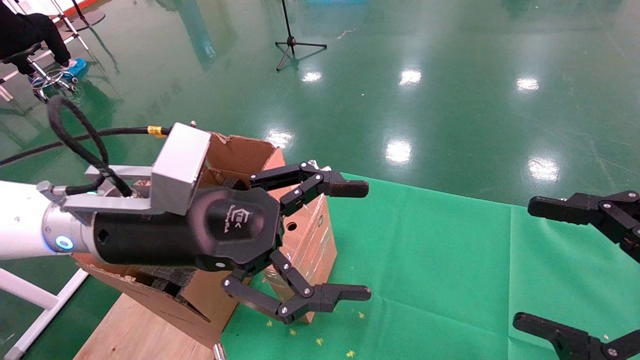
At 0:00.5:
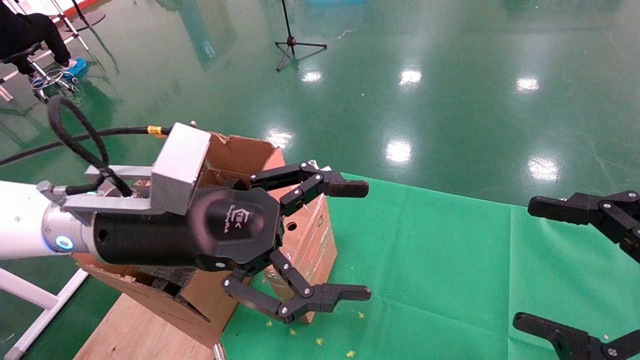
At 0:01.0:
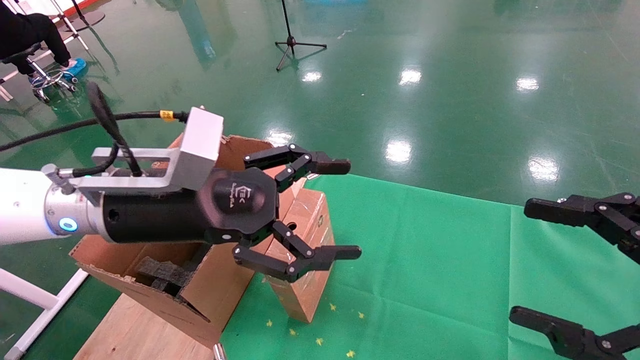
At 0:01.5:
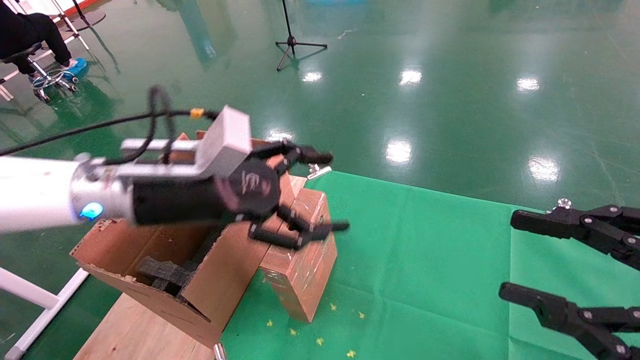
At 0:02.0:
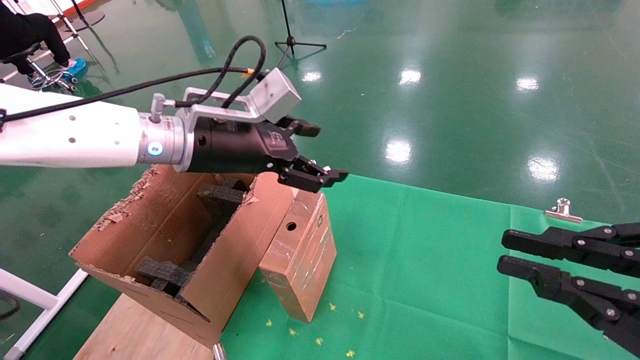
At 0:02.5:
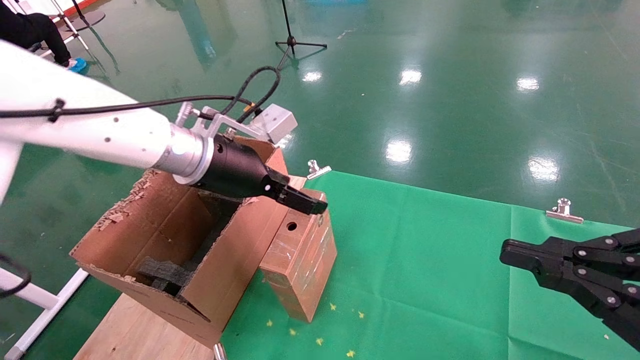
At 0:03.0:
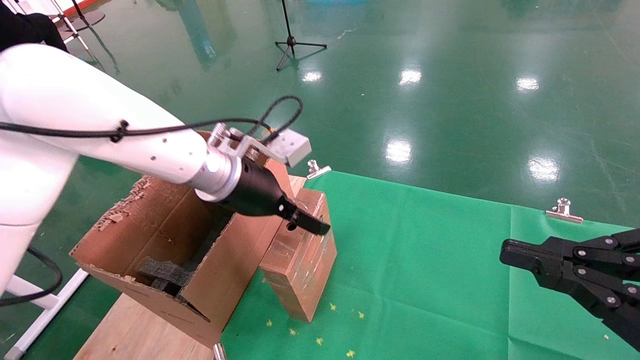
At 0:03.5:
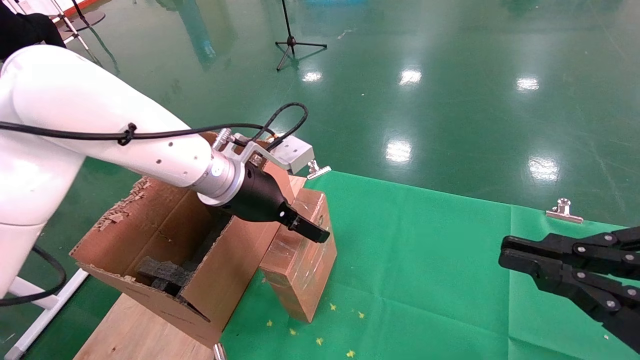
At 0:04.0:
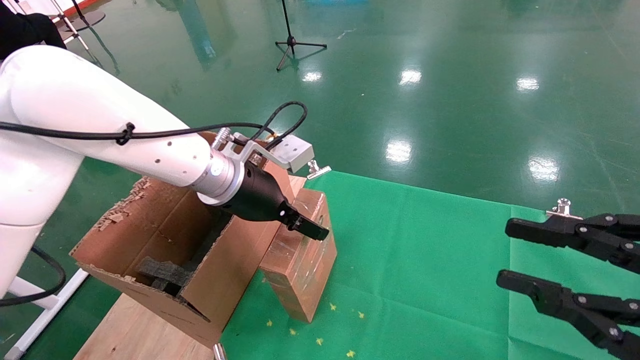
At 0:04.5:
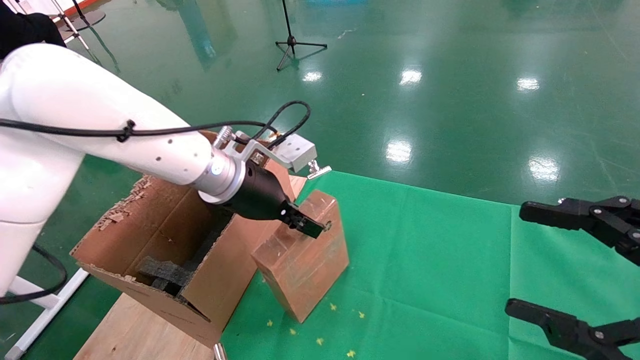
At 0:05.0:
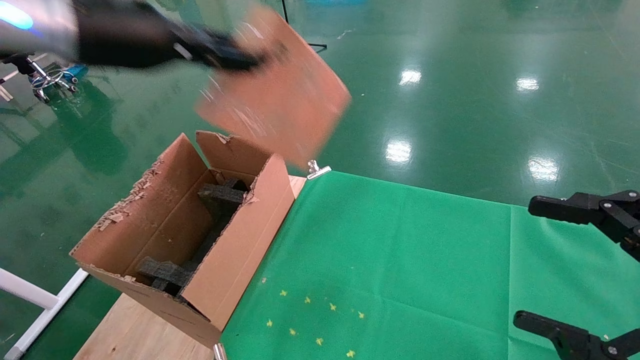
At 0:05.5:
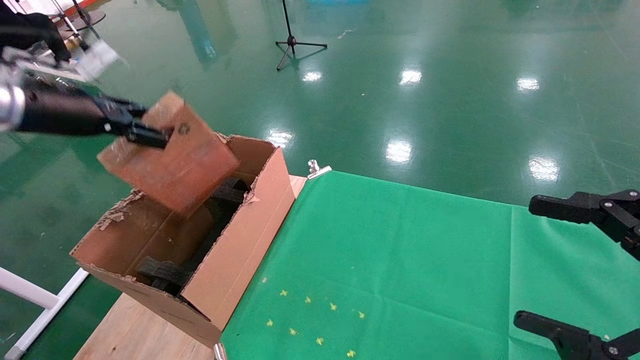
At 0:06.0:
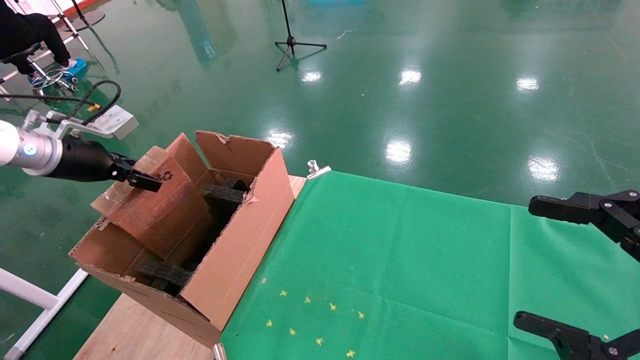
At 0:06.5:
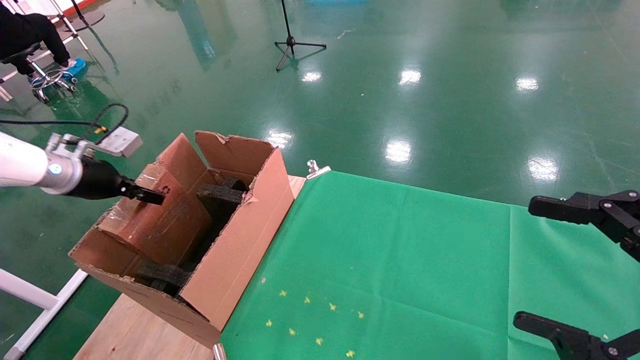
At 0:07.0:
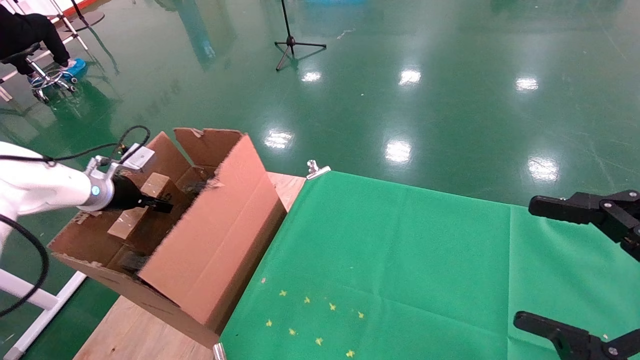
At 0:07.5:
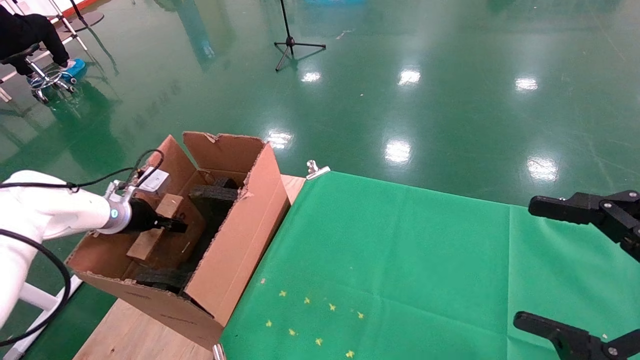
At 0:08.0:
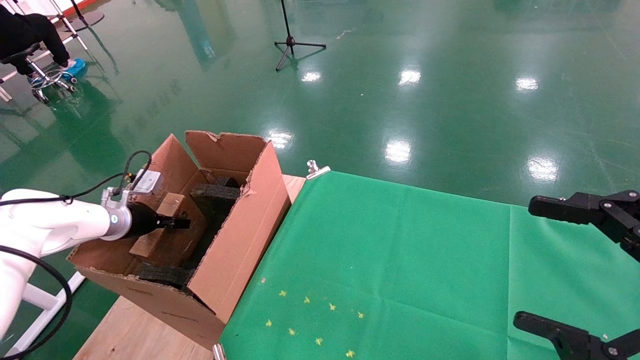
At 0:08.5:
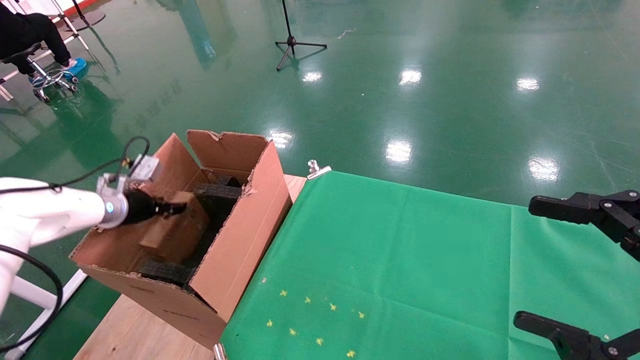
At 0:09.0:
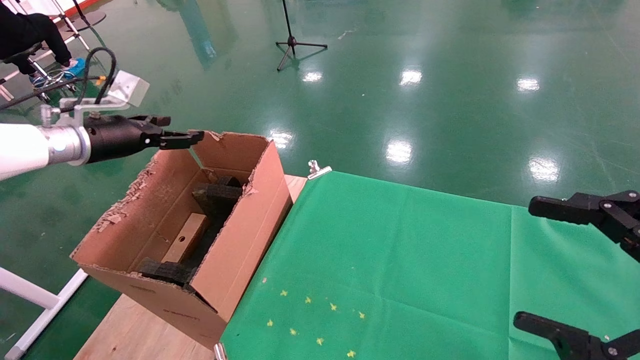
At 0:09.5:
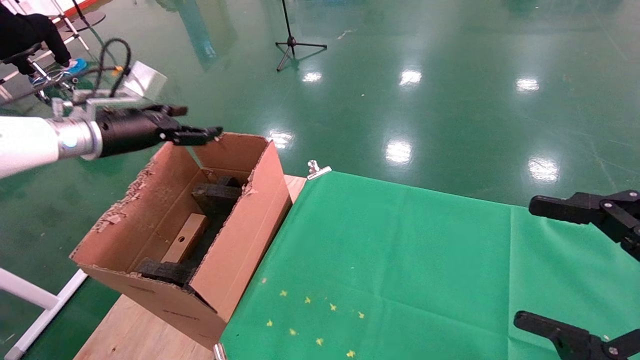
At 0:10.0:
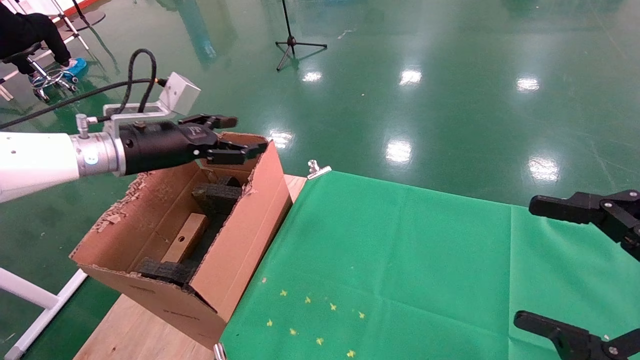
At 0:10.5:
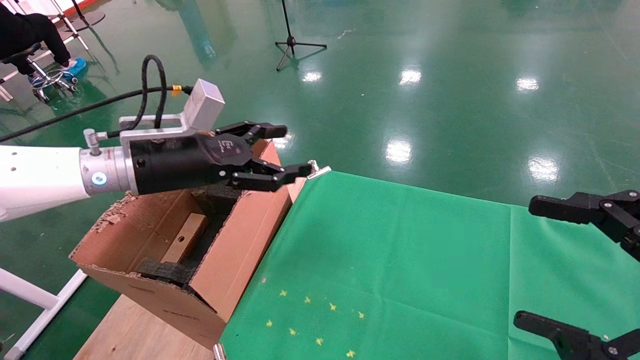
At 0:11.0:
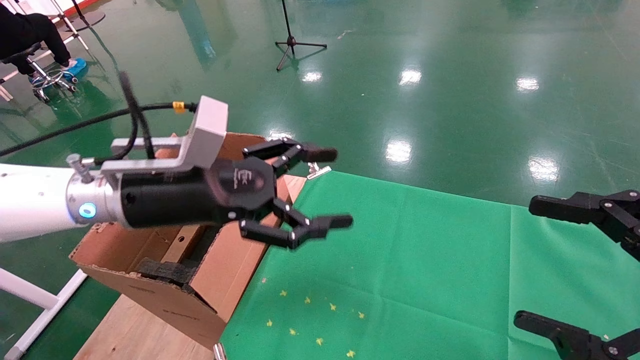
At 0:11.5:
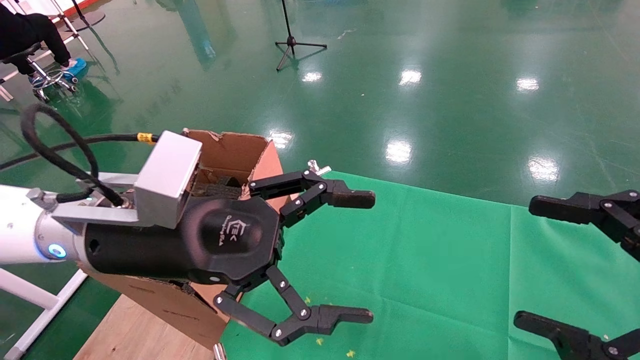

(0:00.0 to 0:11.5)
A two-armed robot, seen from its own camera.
Task of the whole recording: using a robotic arm to pick up a cardboard box and palace it the carton.
Step, 0:01.0 - 0:04.0: Pick up the mouse and the power cord paper box.
Step, 0:04.5 - 0:08.5: Place the mouse and the power cord paper box into the container.
0:00.0 - 0:02.0: The right gripper closes up; the left gripper shifts approximately 10 cm forward.
0:02.0 - 0:04.0: The left gripper shifts by about 5 cm.
0:04.0 - 0:06.0: The left gripper goes approximately 30 cm to the left, and closes up. The right gripper opens.
0:06.0 - 0:07.5: The left gripper shifts roughly 15 cm downward and forward.
0:07.5 - 0:09.5: The left gripper goes approximately 15 cm upward, and opens up.
0:09.5 - 0:11.5: The left gripper travels to the right and backward by roughly 25 cm.

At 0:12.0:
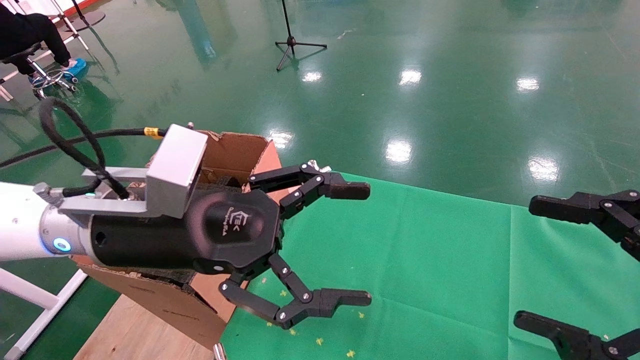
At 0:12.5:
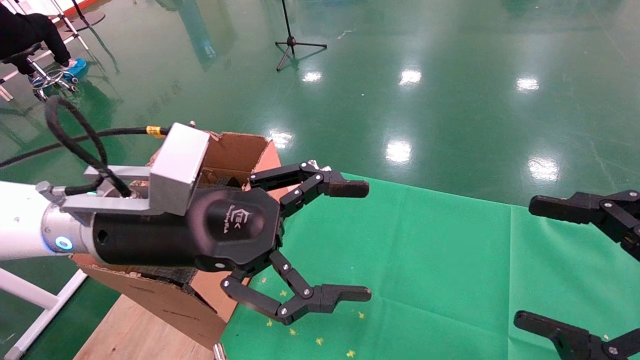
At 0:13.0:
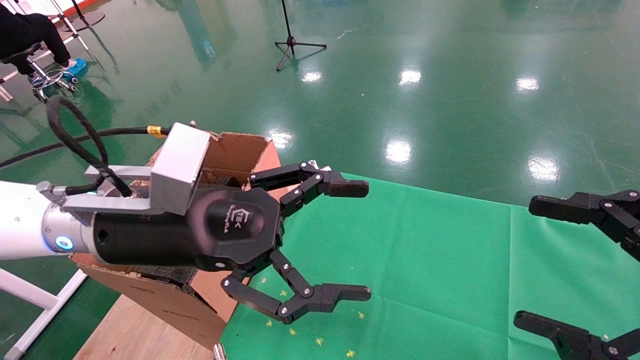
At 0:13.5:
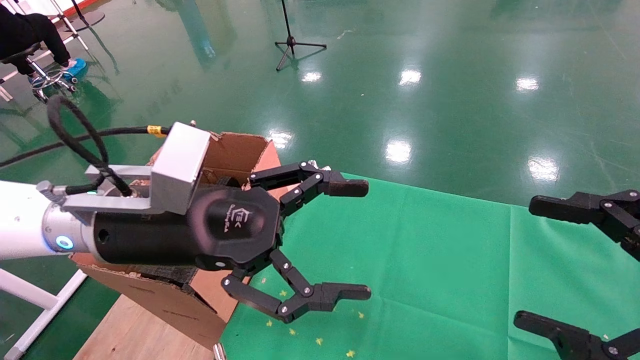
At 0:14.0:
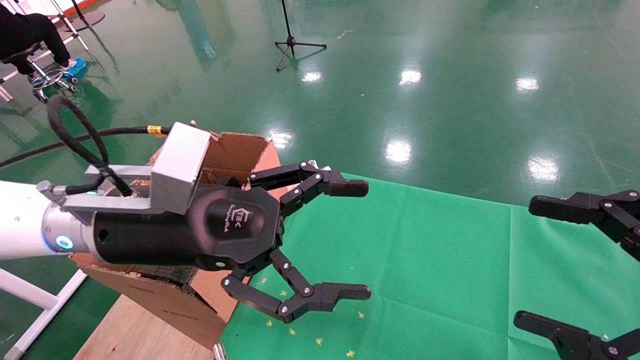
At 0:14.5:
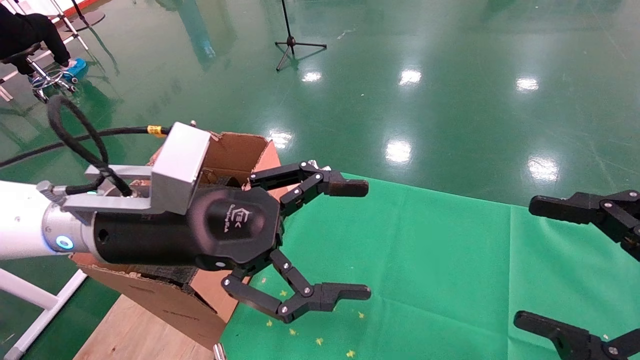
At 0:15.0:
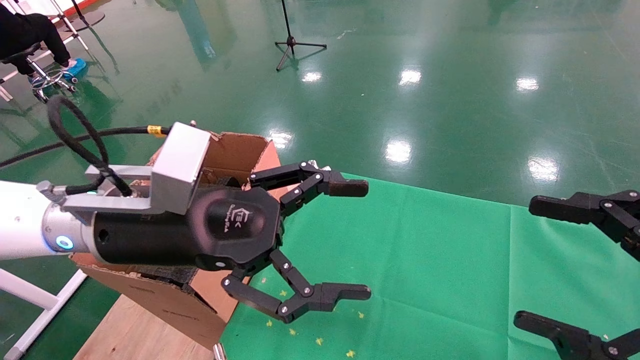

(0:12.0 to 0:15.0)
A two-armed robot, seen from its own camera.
Task of the whole recording: using a robotic arm to pick up a cardboard box and palace it the carton.
0:12.0 - 0:15.0: Both grippers stay put.
